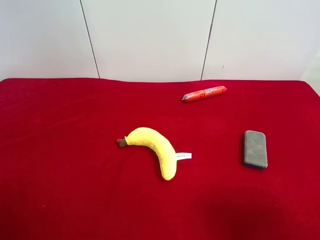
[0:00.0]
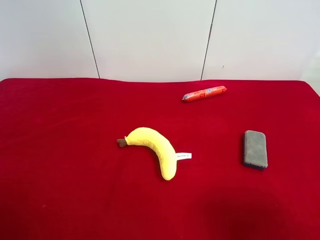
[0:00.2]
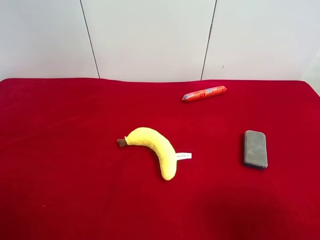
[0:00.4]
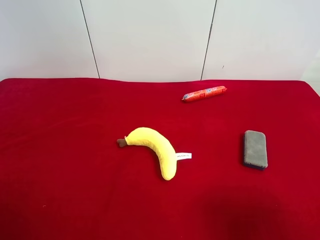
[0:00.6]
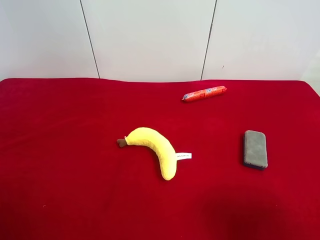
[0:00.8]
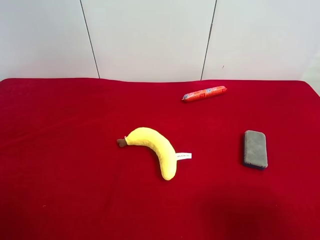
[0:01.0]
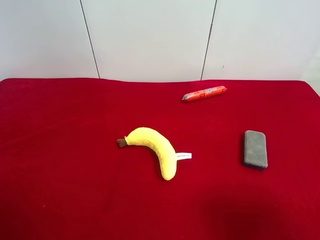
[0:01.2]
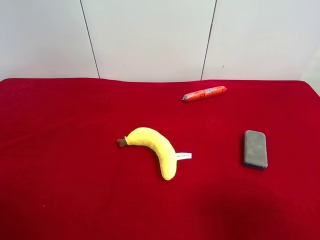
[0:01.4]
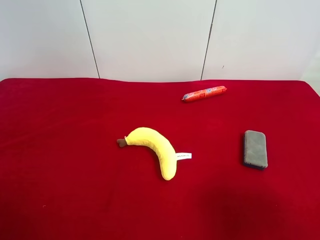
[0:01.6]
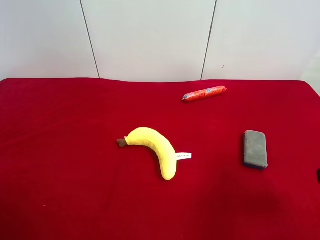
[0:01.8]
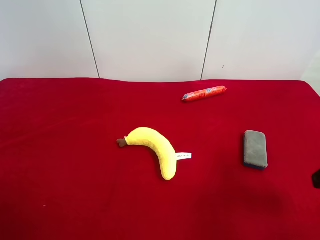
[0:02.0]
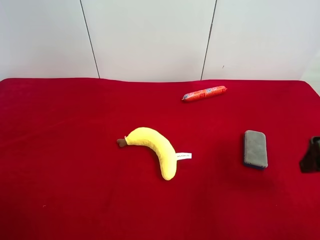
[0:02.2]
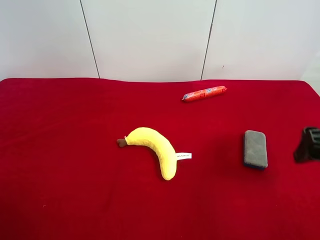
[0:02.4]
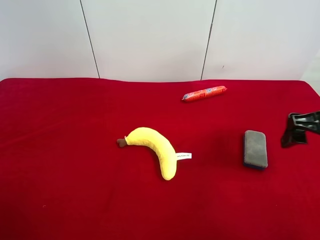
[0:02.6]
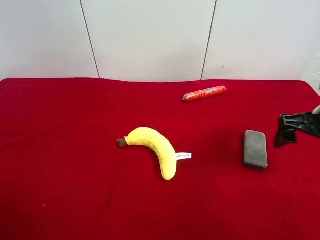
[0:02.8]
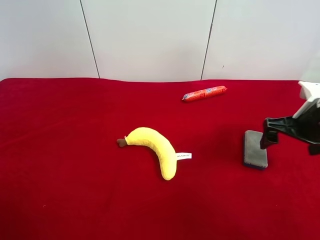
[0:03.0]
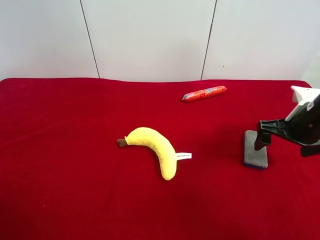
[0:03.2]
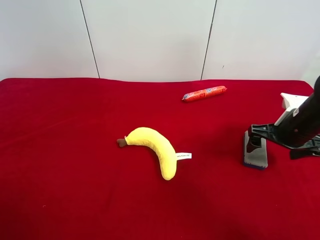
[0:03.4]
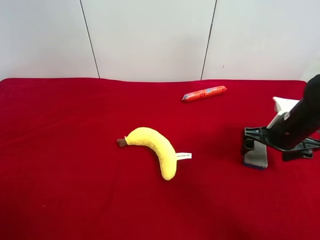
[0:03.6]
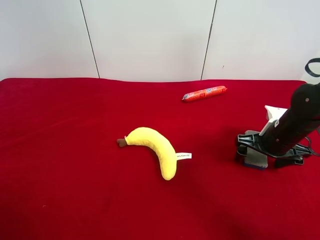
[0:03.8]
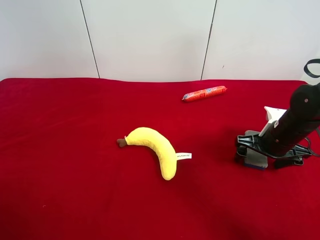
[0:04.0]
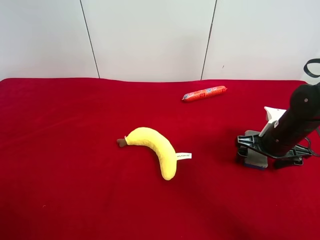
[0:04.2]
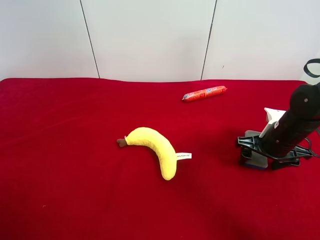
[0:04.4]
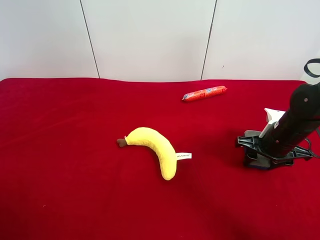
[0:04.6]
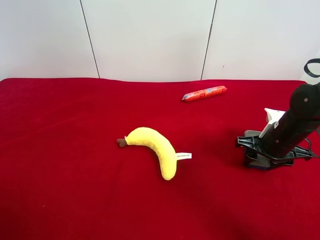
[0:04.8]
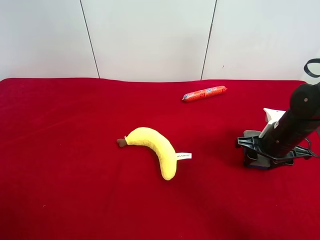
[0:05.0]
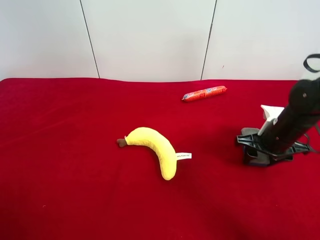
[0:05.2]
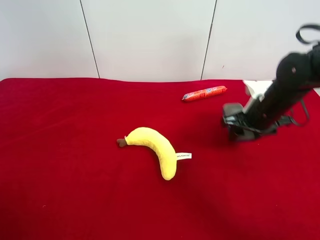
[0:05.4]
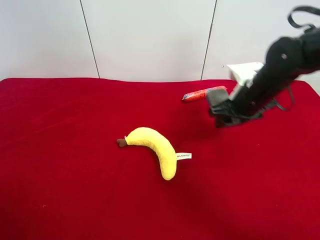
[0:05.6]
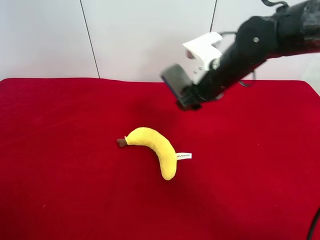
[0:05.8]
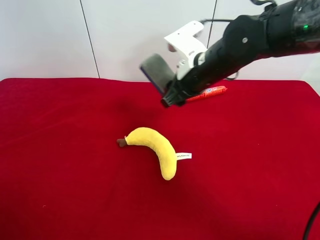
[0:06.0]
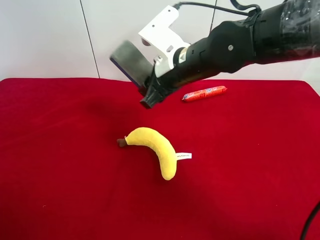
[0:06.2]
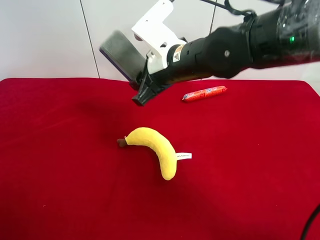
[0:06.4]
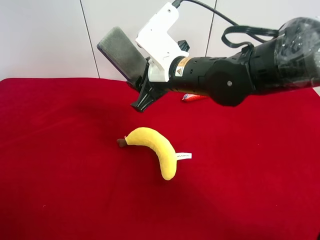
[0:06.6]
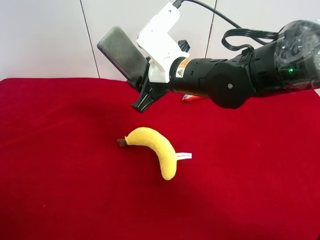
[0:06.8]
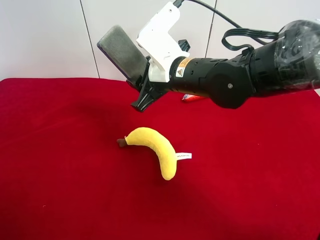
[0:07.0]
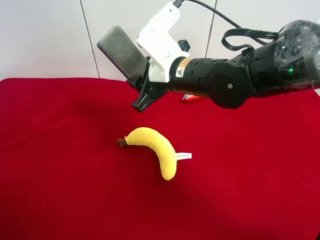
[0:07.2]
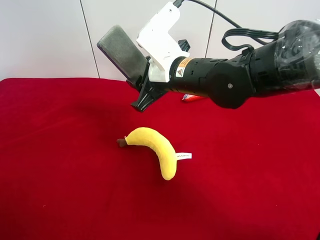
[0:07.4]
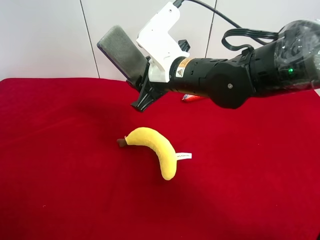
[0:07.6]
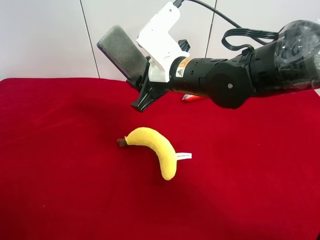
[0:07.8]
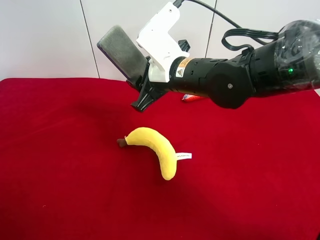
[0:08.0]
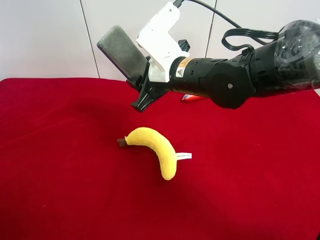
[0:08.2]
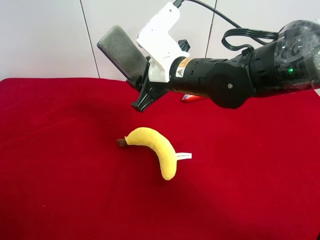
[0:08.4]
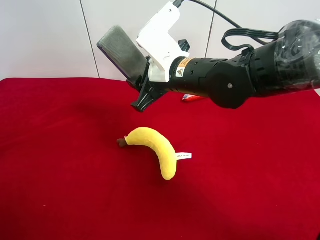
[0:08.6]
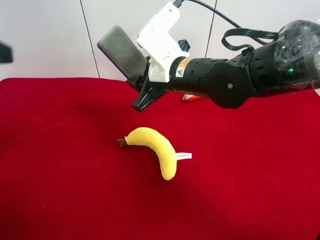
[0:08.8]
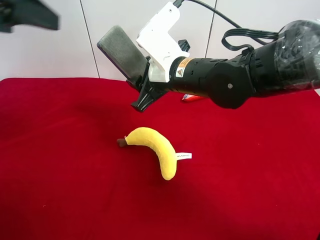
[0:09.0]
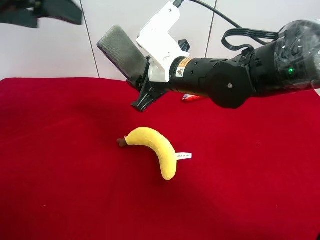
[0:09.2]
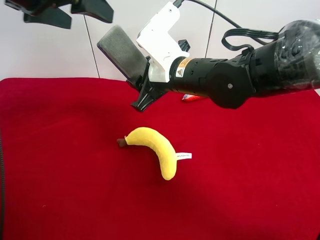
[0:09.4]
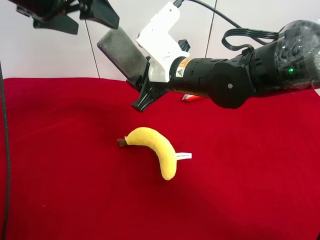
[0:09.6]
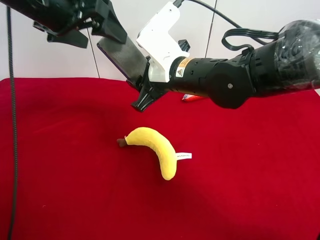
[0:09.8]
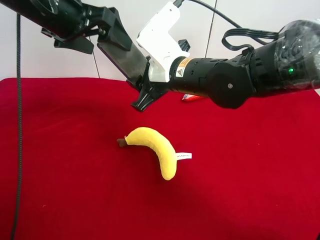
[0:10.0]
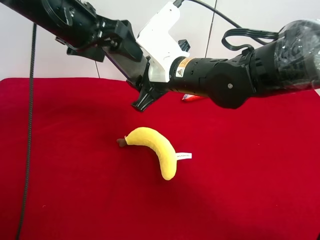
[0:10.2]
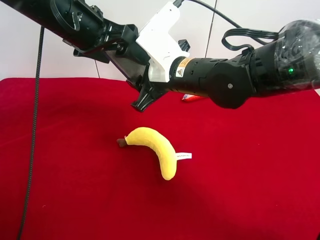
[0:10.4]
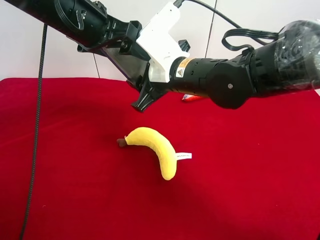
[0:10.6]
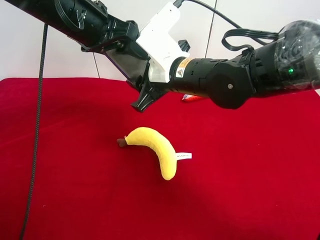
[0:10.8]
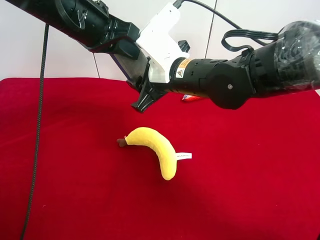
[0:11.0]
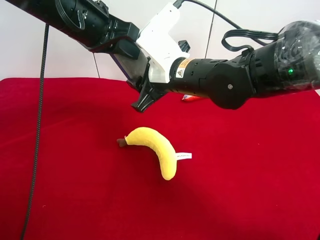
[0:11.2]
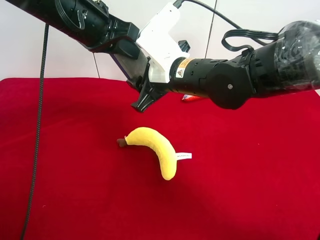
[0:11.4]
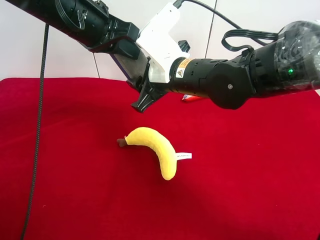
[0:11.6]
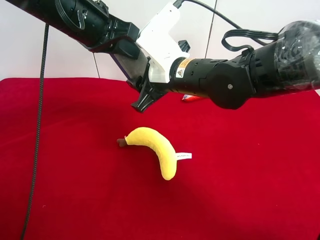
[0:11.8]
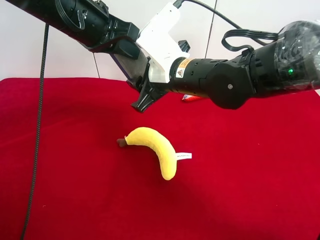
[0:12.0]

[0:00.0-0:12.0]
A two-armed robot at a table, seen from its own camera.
Task of the whole recording: use the right gripper to pick up the item and transfer it from the right gripper to the left gripper.
Step, 0:00.0 to 0:04.4: Use the right gripper to grab the blue blackboard erasure on the right side of the table.
0:01.6 to 0:03.0: The right gripper goes about 20 cm forward and downward.
0:03.0 to 0:04.4: The right gripper goes roughly 10 cm downward, and closes up.
0:04.4 to 0:06.0: The right gripper shifts some 20 cm to the left and upward, and closes its fingers.
0:07.6 to 0:09.0: The left gripper heads forward and upward, covering about 25 cm.
0:09.0 to 0:10.4: The left gripper goes approximately 15 cm to the right, forward and downward.
0:10.4 to 0:12.0: The left gripper closes.

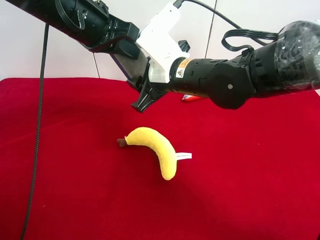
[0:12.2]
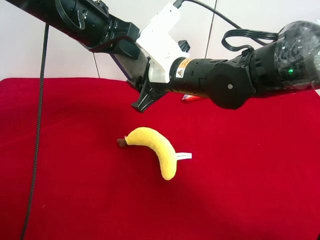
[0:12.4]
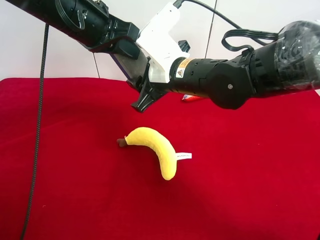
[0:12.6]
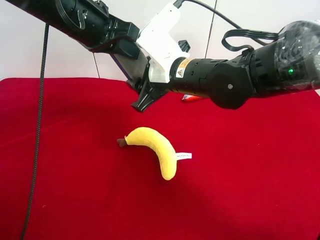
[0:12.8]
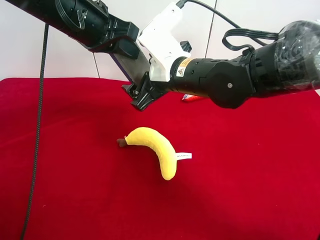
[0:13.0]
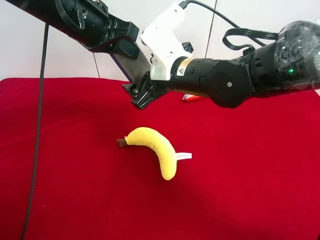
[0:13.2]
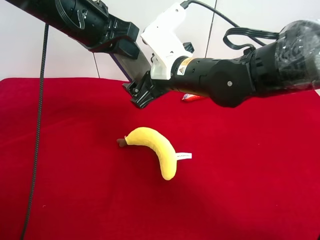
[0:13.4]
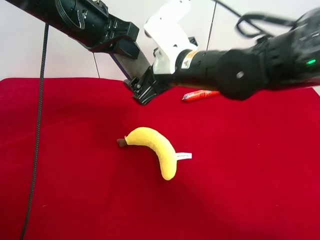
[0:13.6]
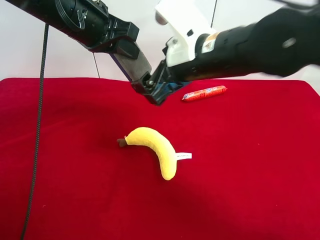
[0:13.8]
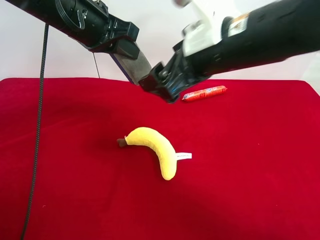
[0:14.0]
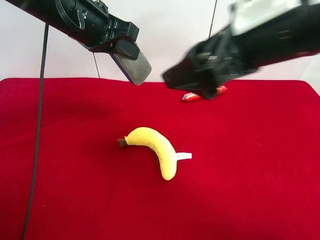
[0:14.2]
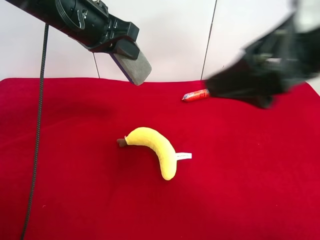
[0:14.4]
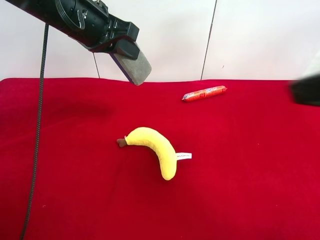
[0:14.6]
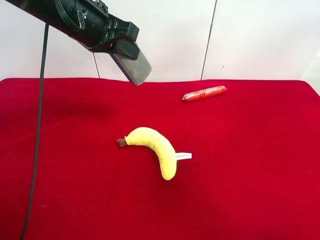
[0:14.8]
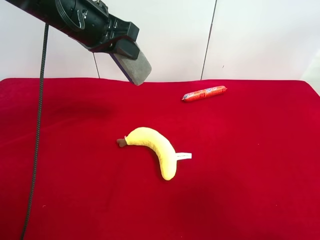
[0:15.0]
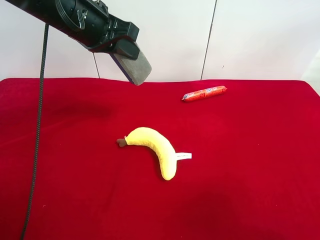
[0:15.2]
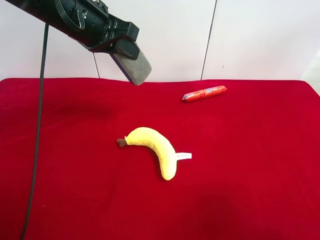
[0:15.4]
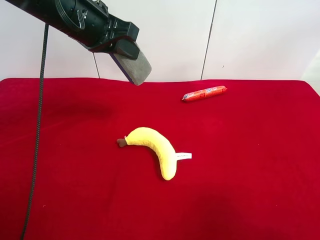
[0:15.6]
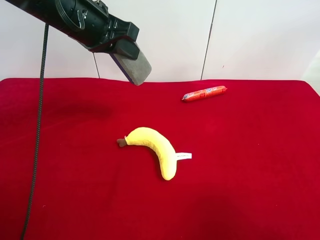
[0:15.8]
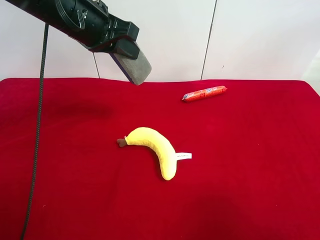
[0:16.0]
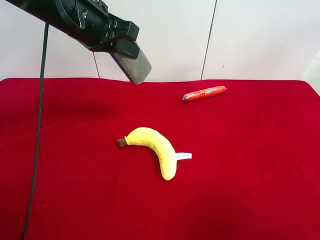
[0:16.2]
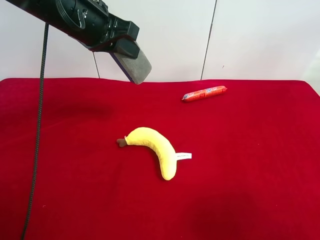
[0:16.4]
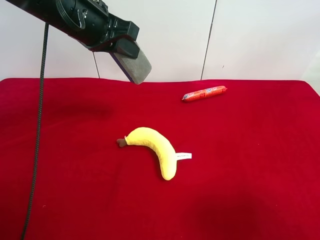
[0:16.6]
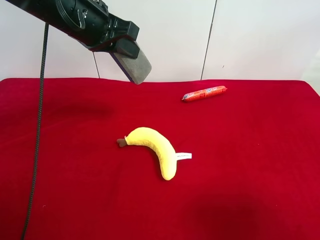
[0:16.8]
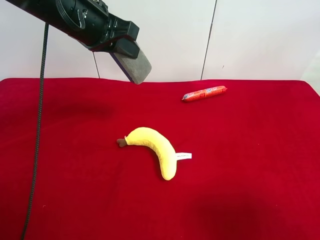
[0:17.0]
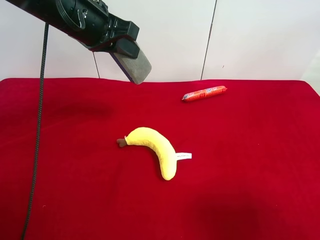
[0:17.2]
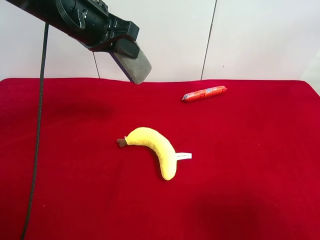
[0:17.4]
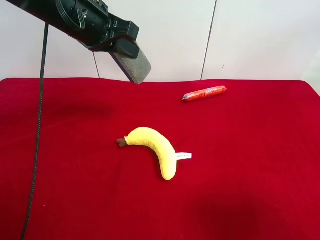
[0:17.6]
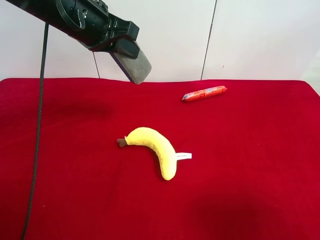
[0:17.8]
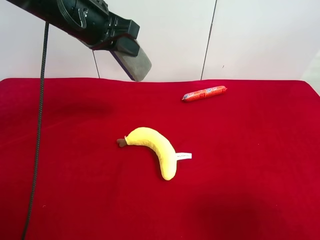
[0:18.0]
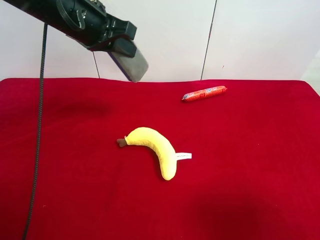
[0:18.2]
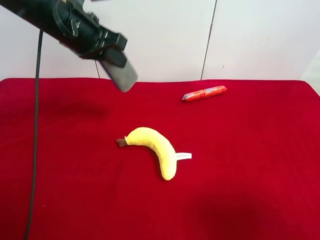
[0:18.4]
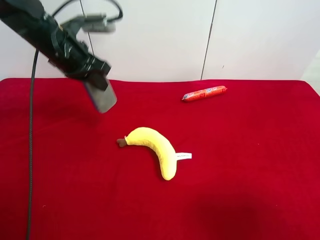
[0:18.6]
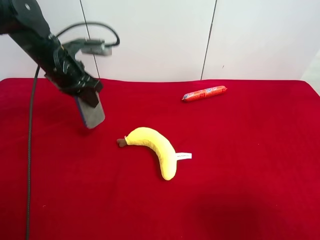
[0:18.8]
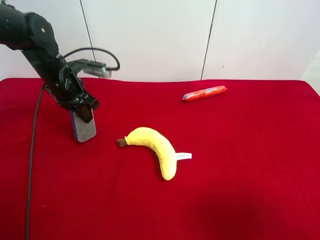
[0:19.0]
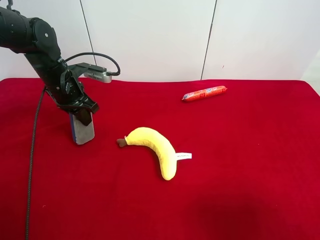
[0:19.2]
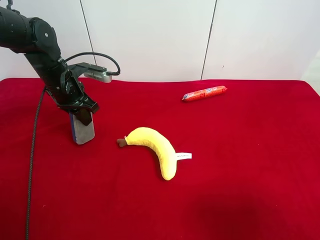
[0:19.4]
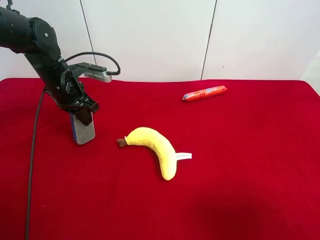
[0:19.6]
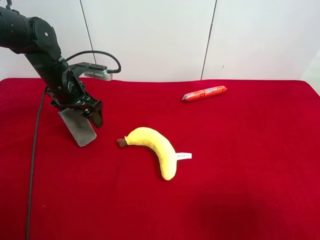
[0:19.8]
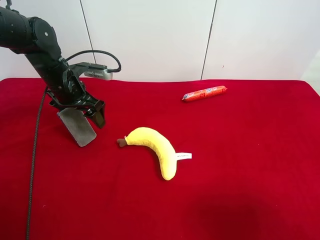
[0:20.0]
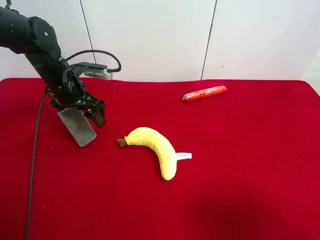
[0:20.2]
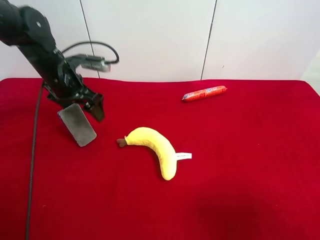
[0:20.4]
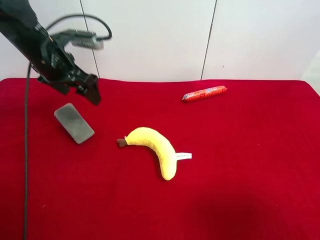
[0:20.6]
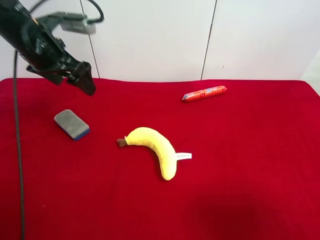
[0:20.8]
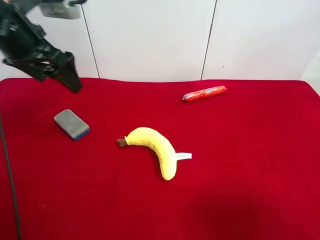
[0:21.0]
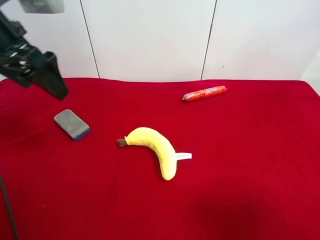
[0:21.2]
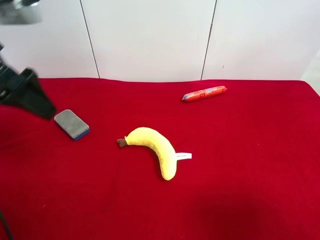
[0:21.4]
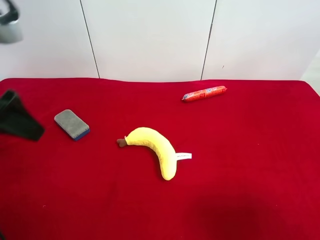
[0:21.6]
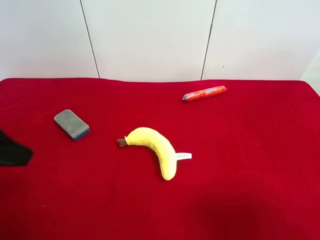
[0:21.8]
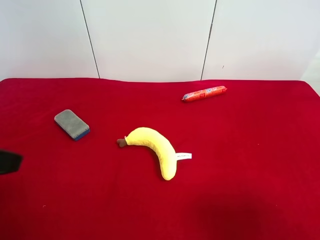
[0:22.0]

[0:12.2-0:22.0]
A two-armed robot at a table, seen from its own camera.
Task of the whole recording: use the right gripper to pick up the item and transfer it from the right gripper to the left gripper.
Step, 0:13.4 to 0:20.4: The left gripper places blue blackboard erasure on the left side of the table.
0:12.2 to 0:13.6: The right gripper opens.
0:13.6 to 0:15.0: The right gripper is displaced backward and to the right by roughly 35 cm.
0:17.8 to 0:19.2: The left gripper moves downward and to the left, some 15 cm.
0:19.2 to 0:20.6: The left gripper travels upward by approximately 10 cm, and opens its fingers.
0:20.6 to 0:22.0: The left gripper travels backward by approximately 25 cm.
